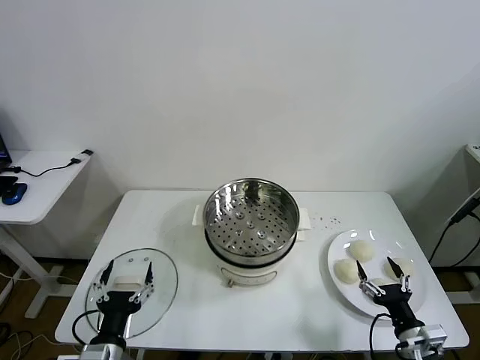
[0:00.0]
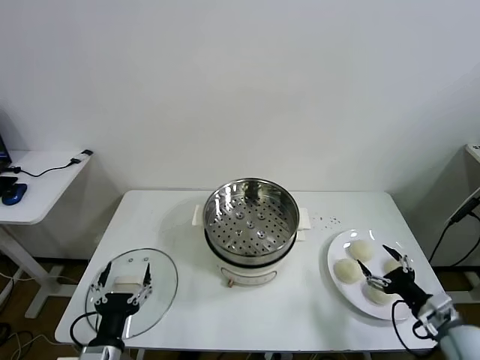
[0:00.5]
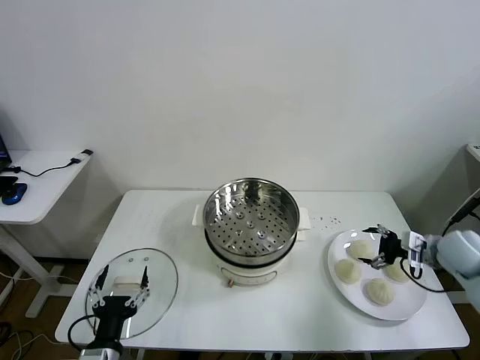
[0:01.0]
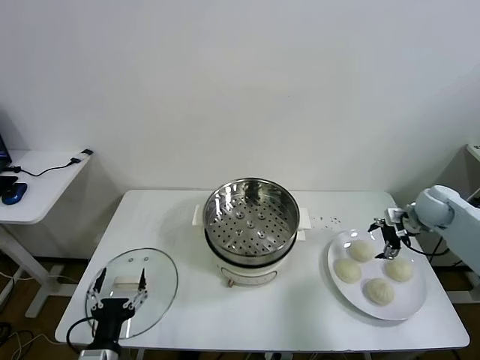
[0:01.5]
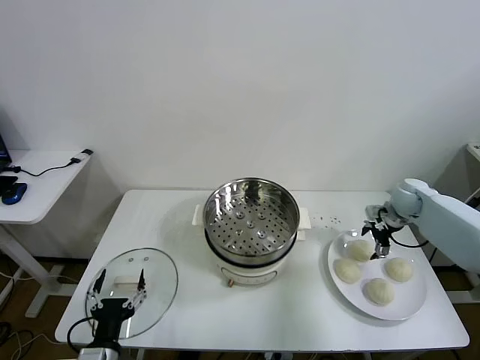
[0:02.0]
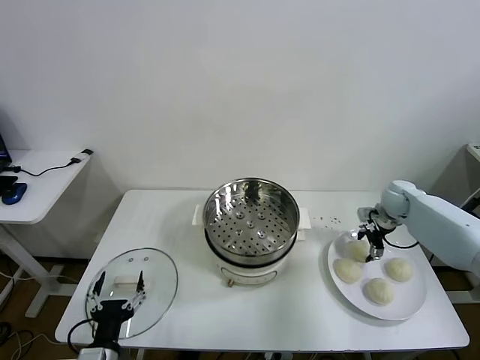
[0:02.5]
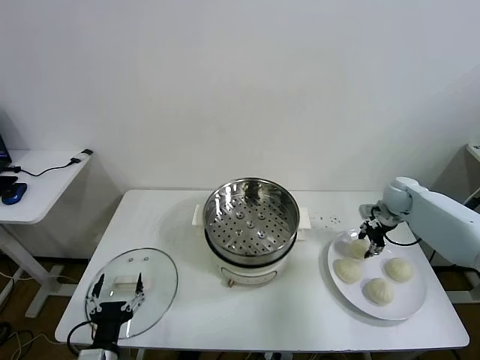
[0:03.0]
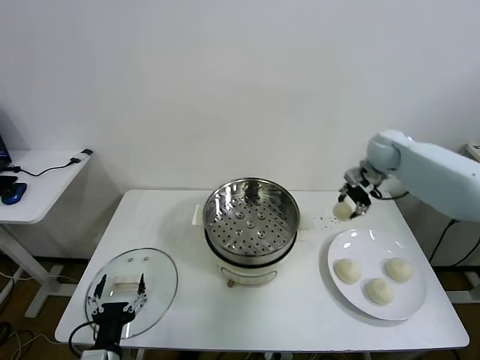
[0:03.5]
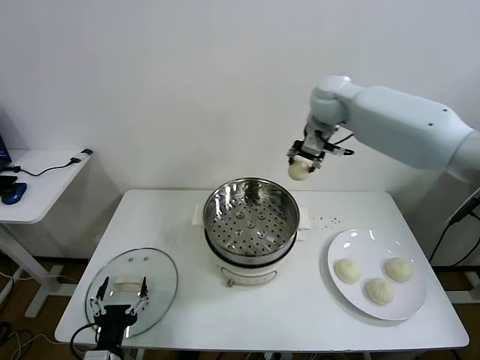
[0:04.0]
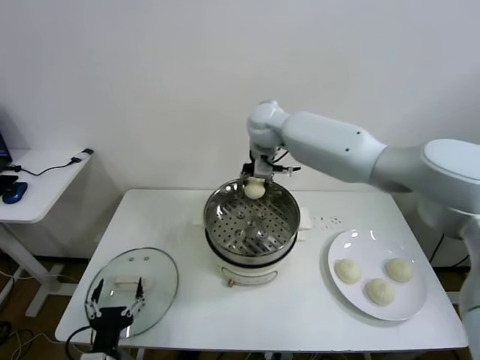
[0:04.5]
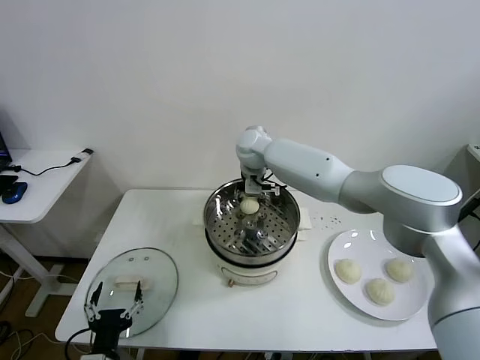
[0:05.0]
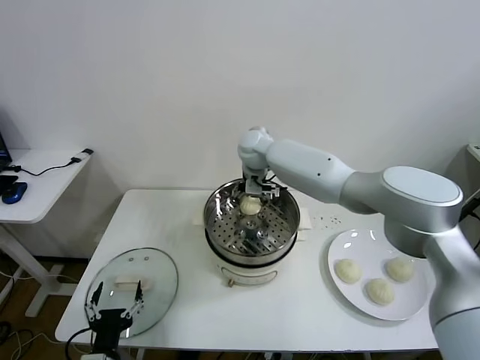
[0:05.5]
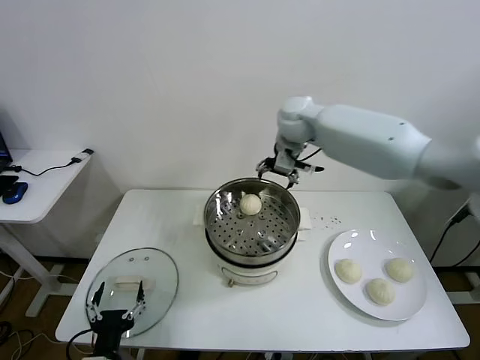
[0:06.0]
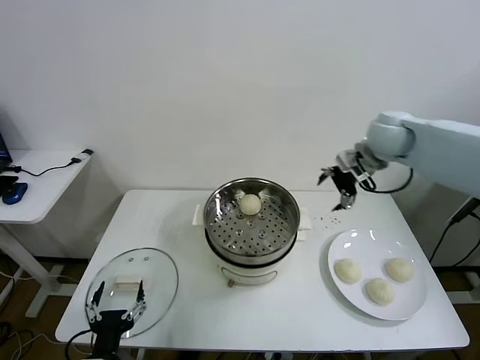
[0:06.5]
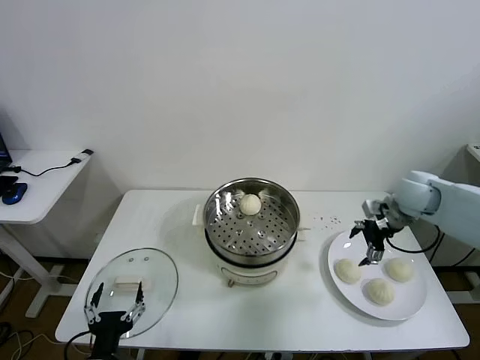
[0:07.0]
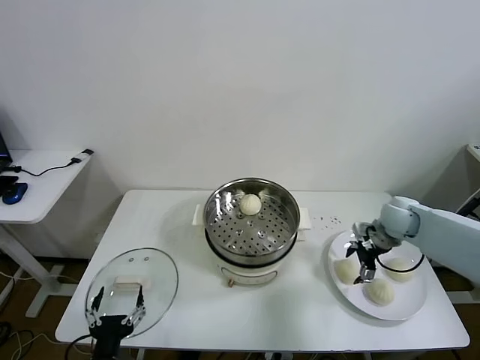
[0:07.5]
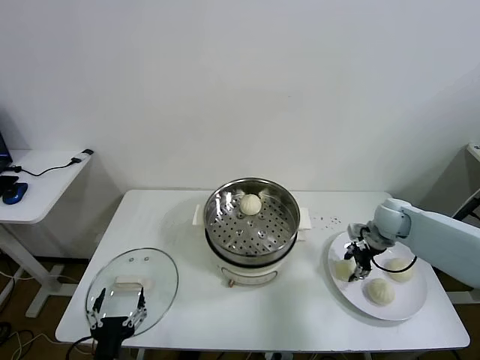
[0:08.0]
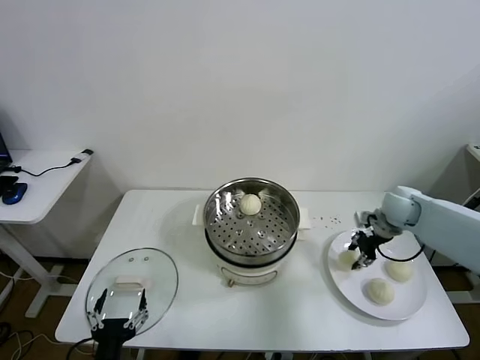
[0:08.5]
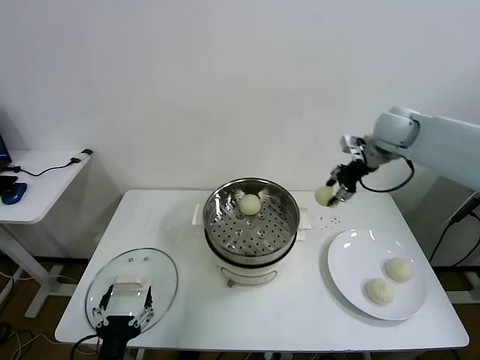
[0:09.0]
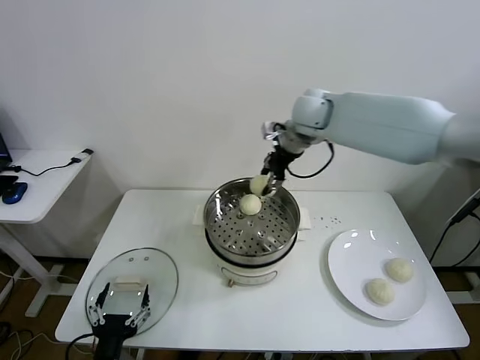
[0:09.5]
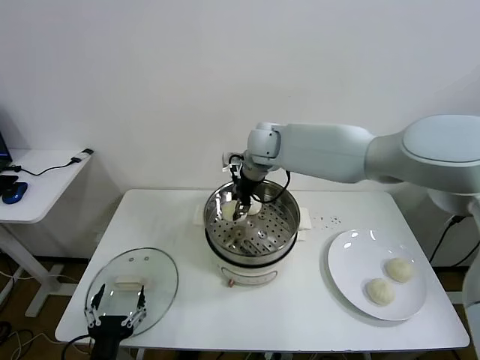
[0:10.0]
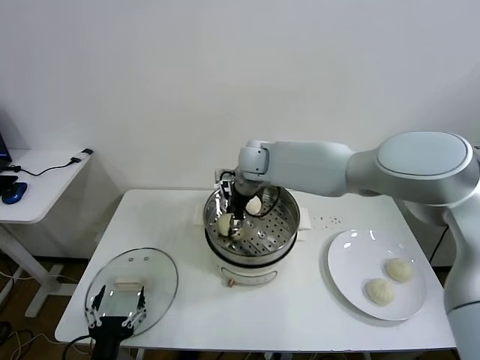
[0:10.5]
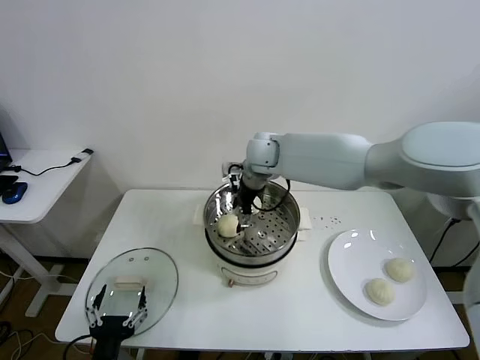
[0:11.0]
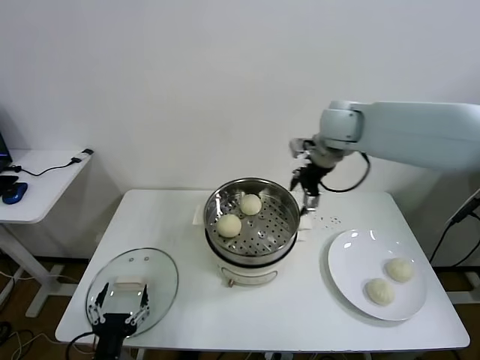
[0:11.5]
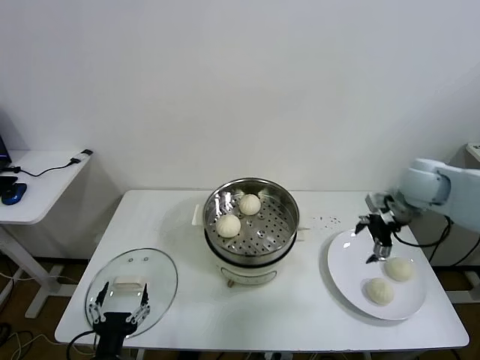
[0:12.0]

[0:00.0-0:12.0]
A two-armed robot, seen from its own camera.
Task of the whole recording: take steamed baozi put them in steamer then cover it.
Step, 0:00.0 to 0:02.5: Grasp the baozi in the plate with right gripper.
Step, 0:03.0 to 0:05.0: Place the baozi on the steamer with right gripper.
Step, 0:05.5 to 0:08.0: Grasp the baozi in the plate with right gripper.
Step, 0:08.5 to 0:10.5: Place the baozi on the steamer with right gripper.
0:02.0 to 0:04.0: The right gripper shifts roughly 40 cm to the left and upward, and closes up.
0:04.0 to 0:06.0: The right gripper travels downward and back again, approximately 15 cm each way, and opens.
0:06.0 to 0:08.0: The right gripper heads downward and to the right, covering approximately 35 cm, and closes its fingers.
0:08.0 to 0:10.0: The right gripper heads to the left and upward, covering roughly 35 cm.
0:10.0 to 0:12.0: The right gripper moves to the right, some 35 cm, and opens its fingers.

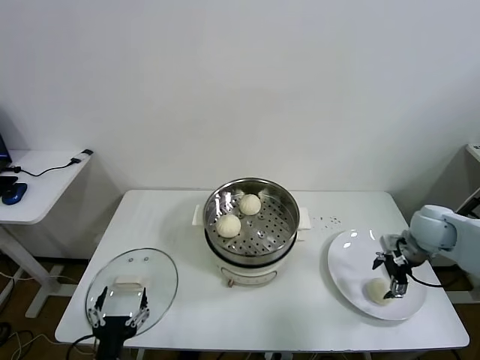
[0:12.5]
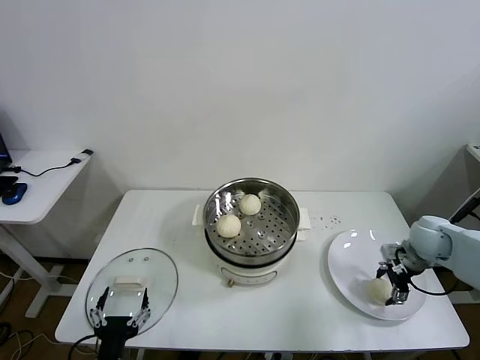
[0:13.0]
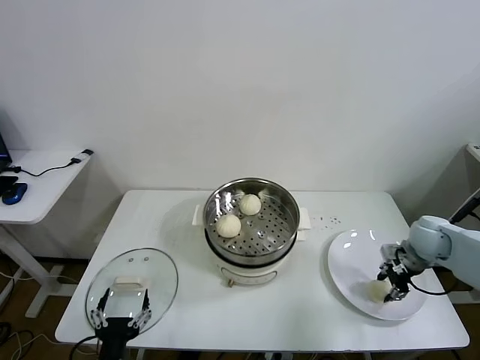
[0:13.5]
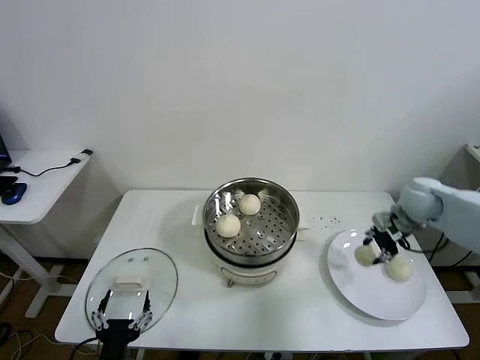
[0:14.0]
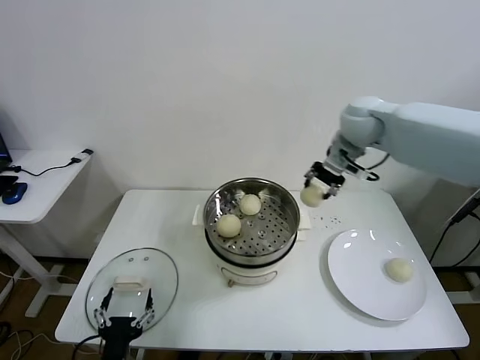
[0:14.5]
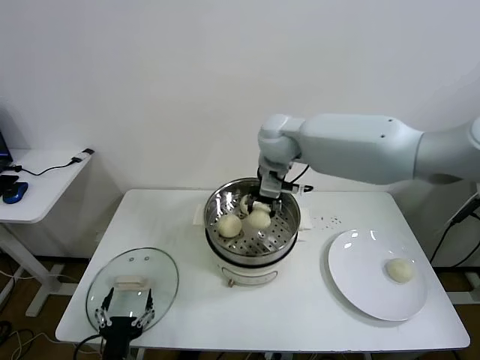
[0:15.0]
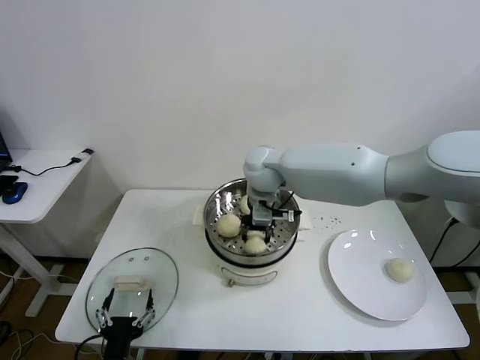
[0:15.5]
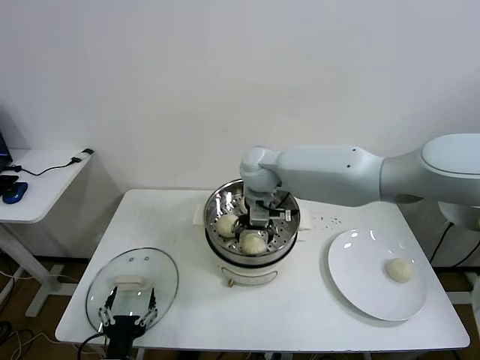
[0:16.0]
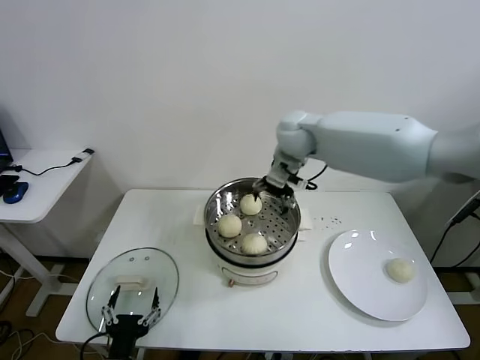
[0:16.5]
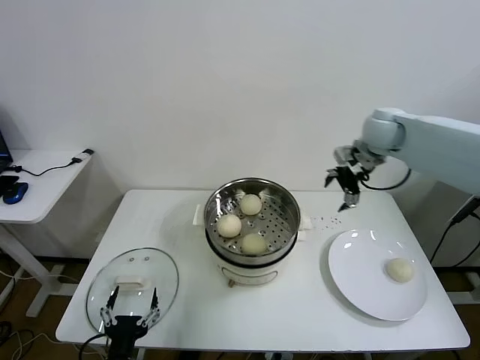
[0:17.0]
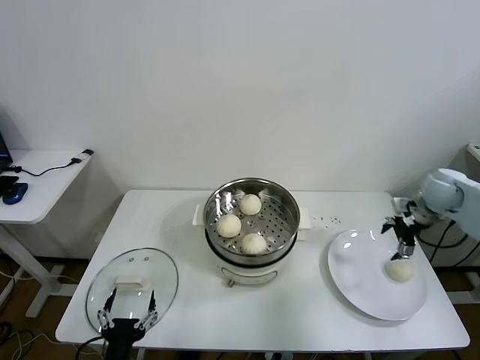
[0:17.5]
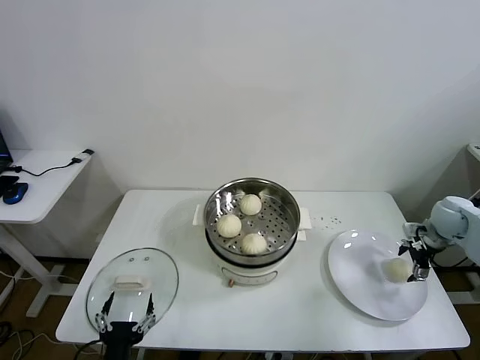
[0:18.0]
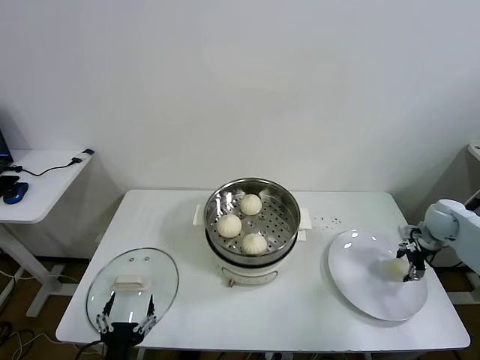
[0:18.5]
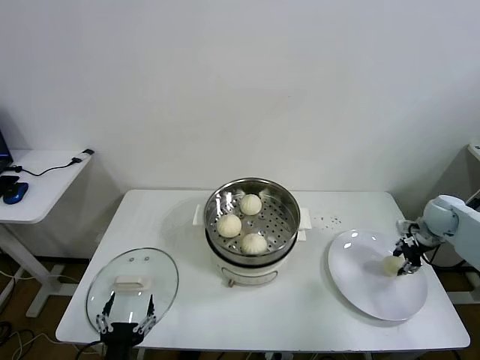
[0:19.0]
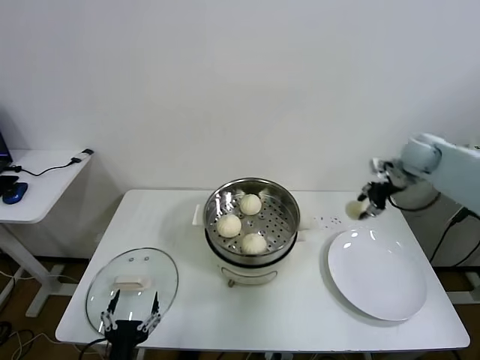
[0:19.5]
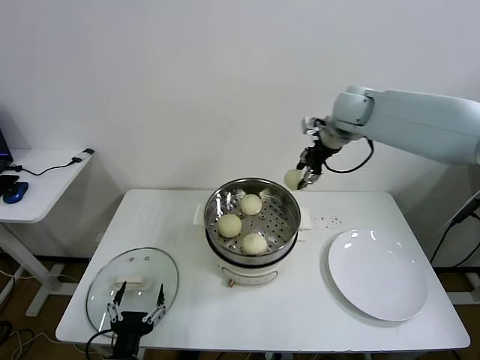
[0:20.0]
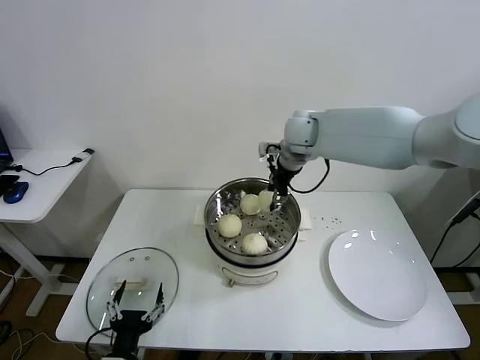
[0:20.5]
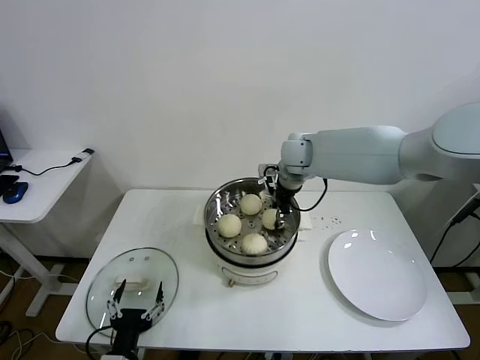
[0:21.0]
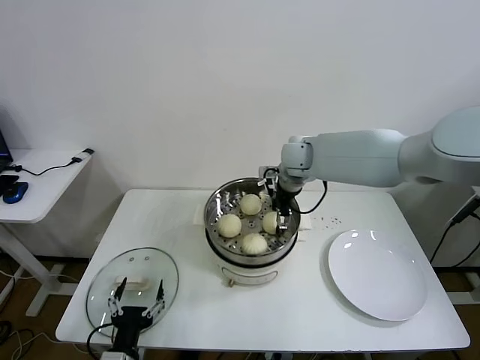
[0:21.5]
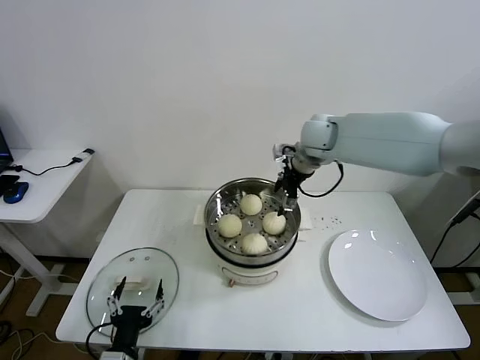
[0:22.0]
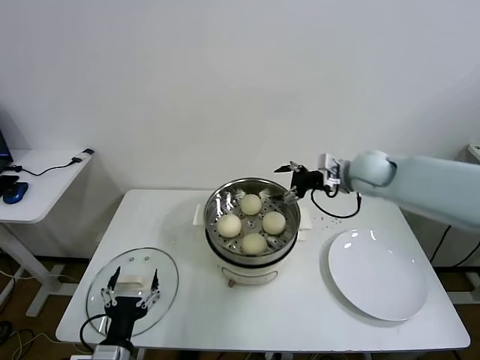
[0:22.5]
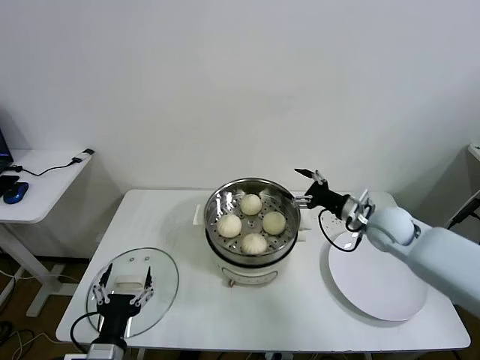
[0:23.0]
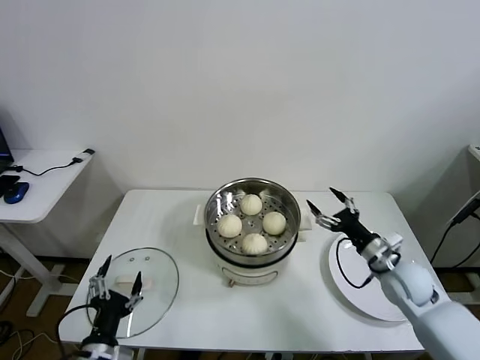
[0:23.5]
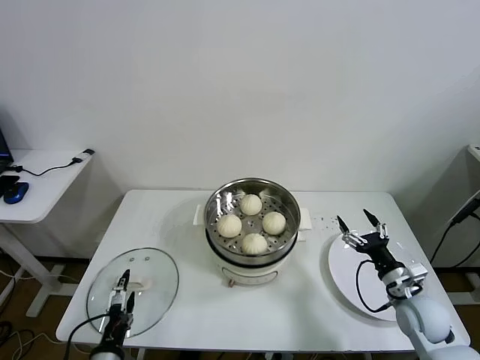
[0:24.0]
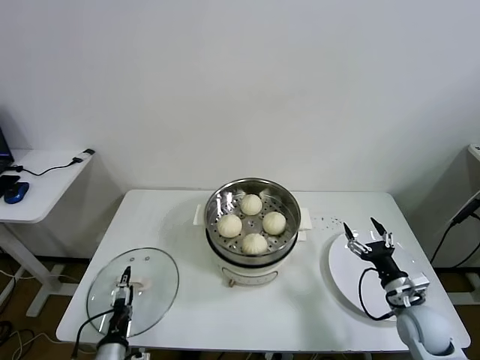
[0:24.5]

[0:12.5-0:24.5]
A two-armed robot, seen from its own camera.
Task of the whole recording: take steamed baozi put them in steamer then cover it.
Step, 0:13.5 to 0:15.5: Place the baozi on the steamer with right gripper.
Step, 0:16.0 to 0:18.5: Grasp the baozi in the plate with right gripper.
Step, 0:19.0 to 0:21.0: Place the baozi on the steamer with right gripper.
0:12.5 to 0:14.5: The right gripper goes about 35 cm upward, to the left and forward, and closes.
0:14.5 to 0:16.5: The right gripper moves to the left, about 10 cm, and opens up.
0:16.5 to 0:18.5: The right gripper moves to the right and downward, some 40 cm, and closes its fingers.
0:18.5 to 0:20.5: The right gripper goes about 40 cm to the left and upward, and closes its fingers.
0:20.5 to 0:22.5: The right gripper goes roughly 15 cm to the right, backward and downward, and opens up.
0:22.5 to 0:24.5: The left gripper moves downward, some 10 cm; the right gripper moves backward, downward and to the right, about 35 cm.

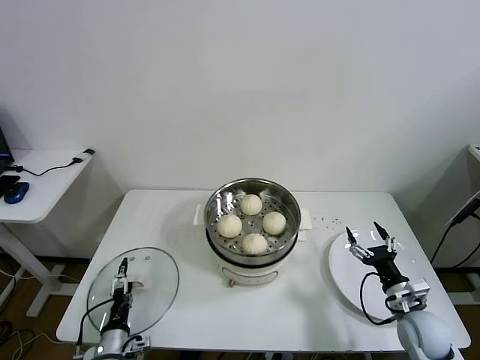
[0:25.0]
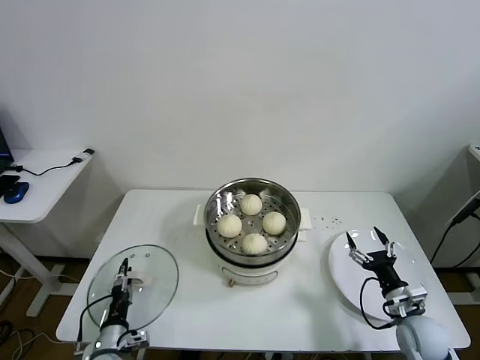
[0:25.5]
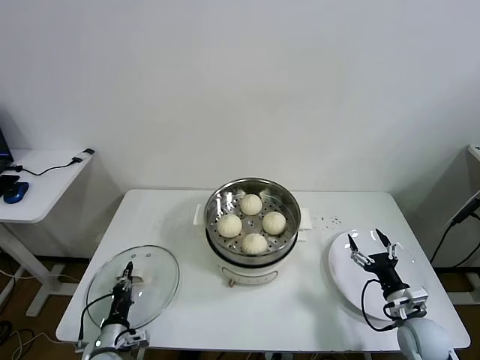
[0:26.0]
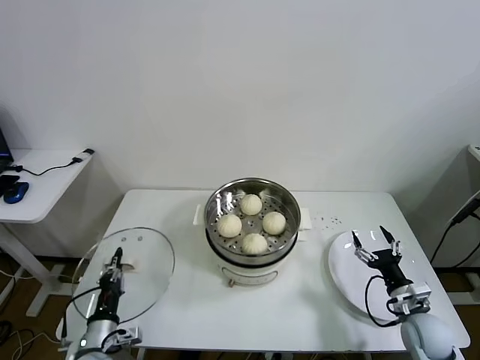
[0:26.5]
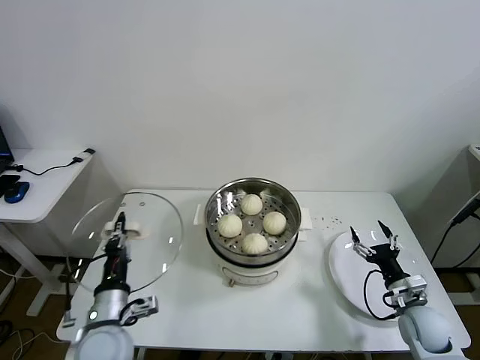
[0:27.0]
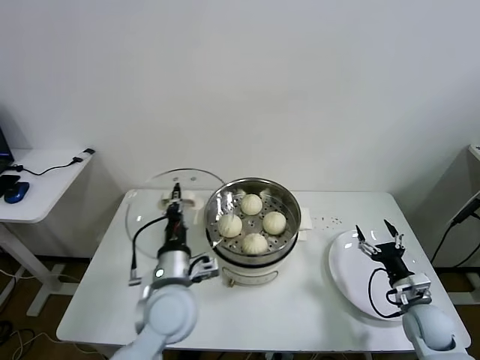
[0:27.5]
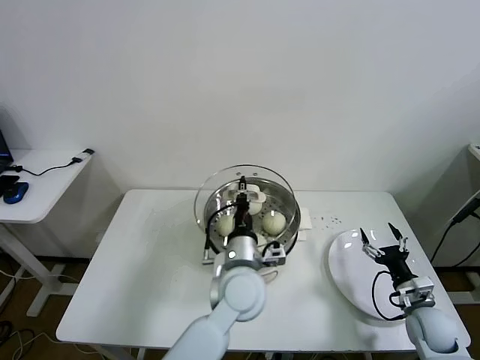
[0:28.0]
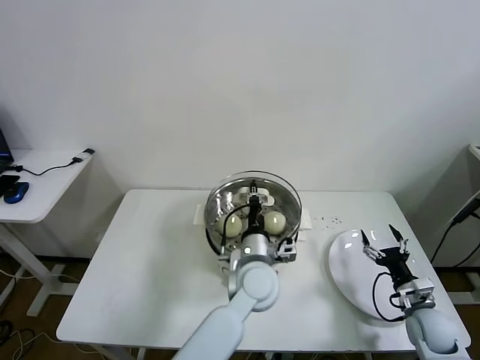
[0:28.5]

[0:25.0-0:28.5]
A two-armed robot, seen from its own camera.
Task of the whole recording: take steamed baozi put them in steamer then cover it.
0:25.0 to 0:27.0: The left gripper travels upward by about 15 cm, and closes up.
0:27.0 to 0:28.5: The left gripper goes roughly 30 cm to the right and forward.
